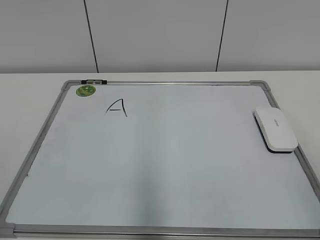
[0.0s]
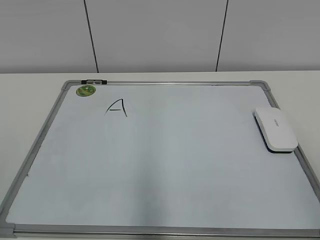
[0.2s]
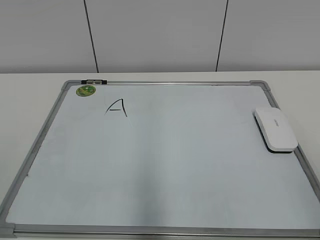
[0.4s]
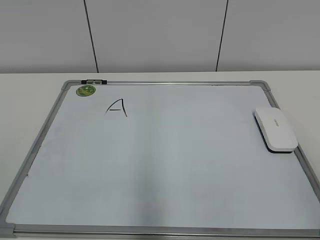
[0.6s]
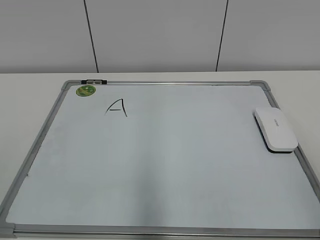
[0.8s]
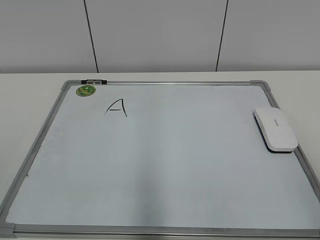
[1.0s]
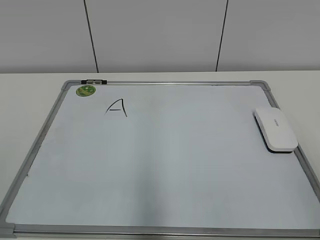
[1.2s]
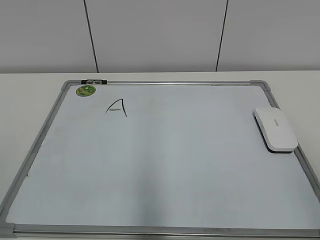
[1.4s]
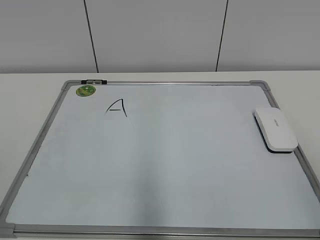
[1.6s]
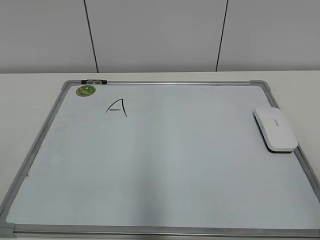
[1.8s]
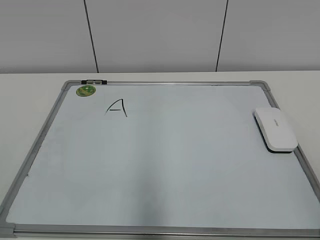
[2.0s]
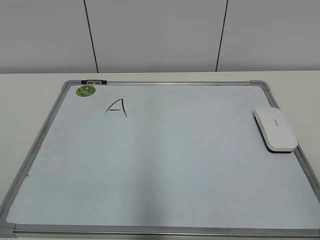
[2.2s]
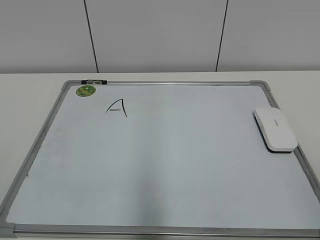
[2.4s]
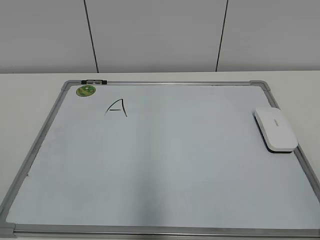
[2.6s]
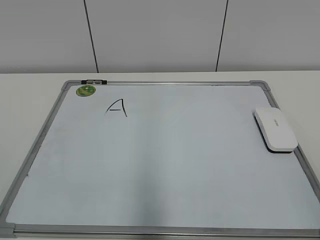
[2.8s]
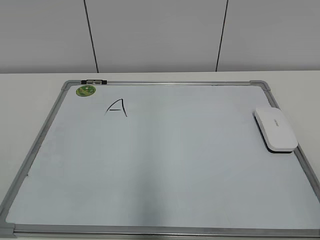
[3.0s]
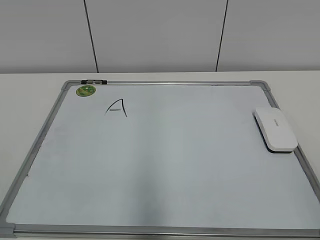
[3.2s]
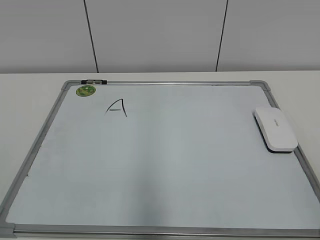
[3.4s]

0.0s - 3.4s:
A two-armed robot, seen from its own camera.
Task of the whole recording: pick up the eraser on the blackboard and erase the letter "a".
0.0s - 1.6s: Neither gripper changes place.

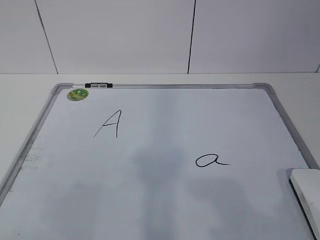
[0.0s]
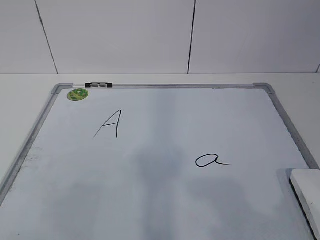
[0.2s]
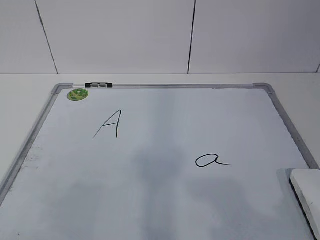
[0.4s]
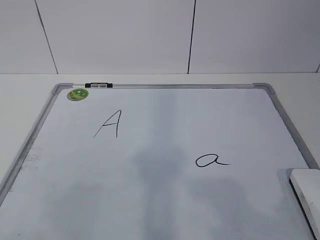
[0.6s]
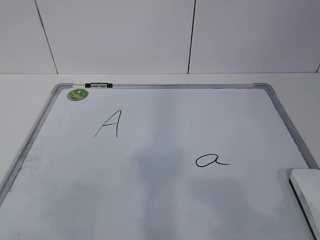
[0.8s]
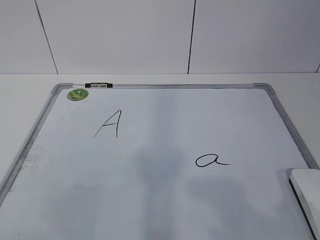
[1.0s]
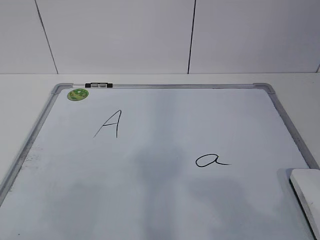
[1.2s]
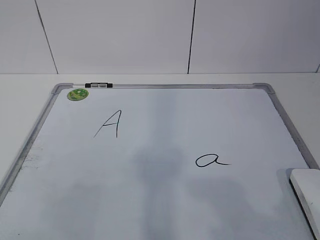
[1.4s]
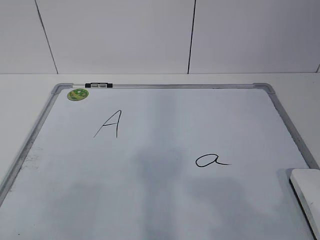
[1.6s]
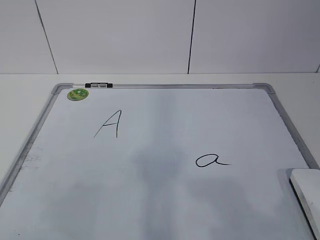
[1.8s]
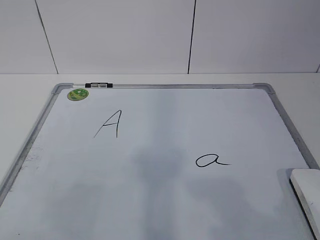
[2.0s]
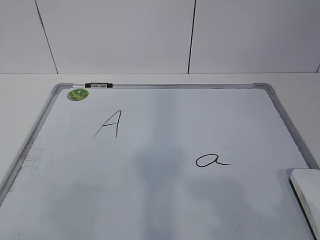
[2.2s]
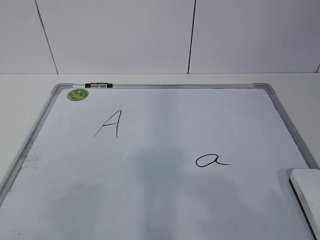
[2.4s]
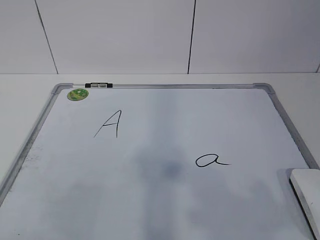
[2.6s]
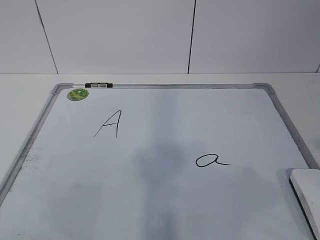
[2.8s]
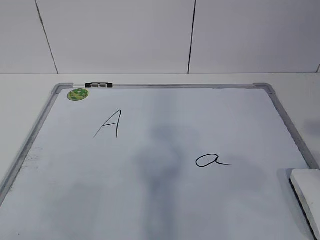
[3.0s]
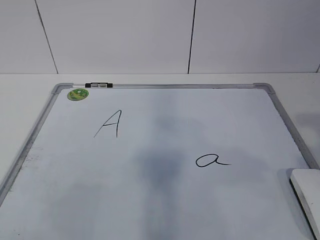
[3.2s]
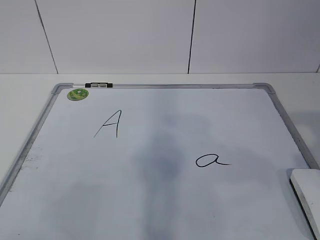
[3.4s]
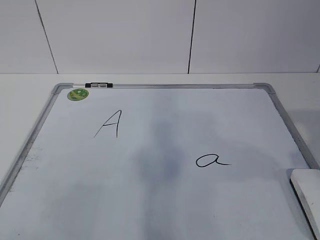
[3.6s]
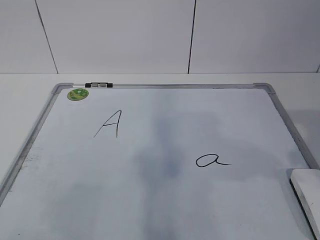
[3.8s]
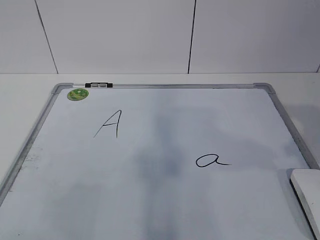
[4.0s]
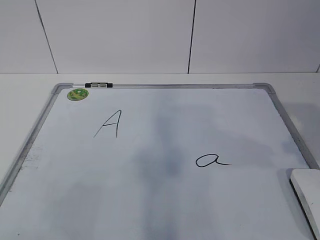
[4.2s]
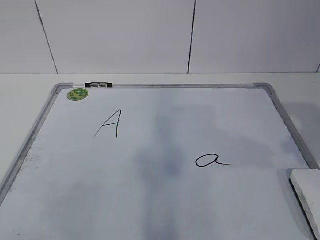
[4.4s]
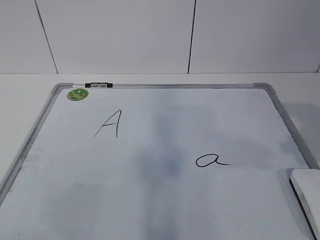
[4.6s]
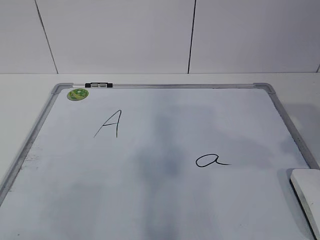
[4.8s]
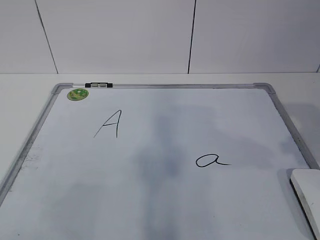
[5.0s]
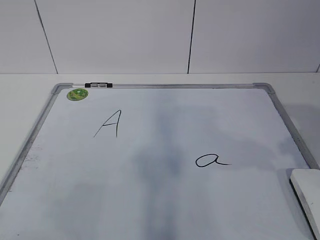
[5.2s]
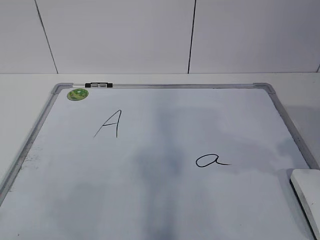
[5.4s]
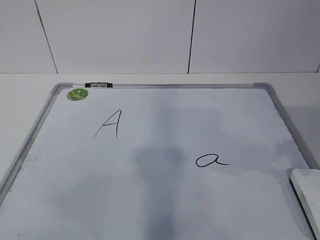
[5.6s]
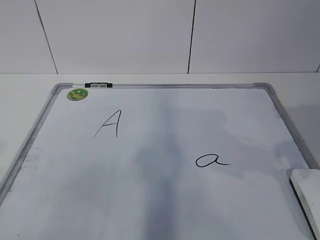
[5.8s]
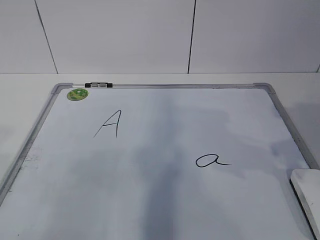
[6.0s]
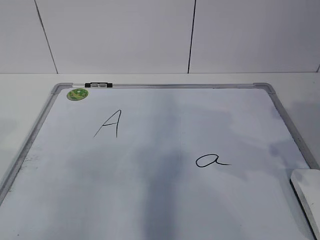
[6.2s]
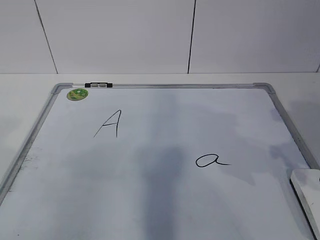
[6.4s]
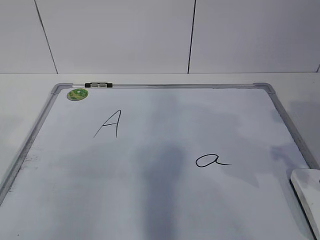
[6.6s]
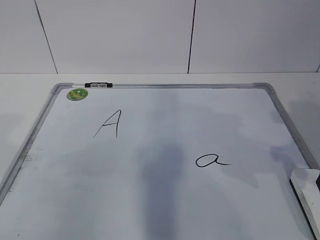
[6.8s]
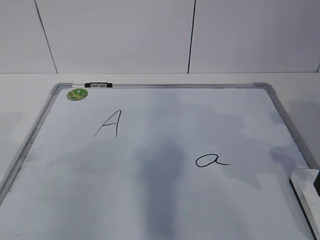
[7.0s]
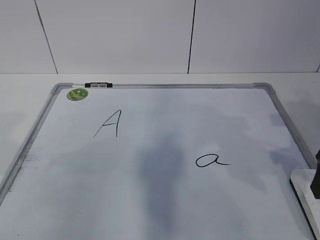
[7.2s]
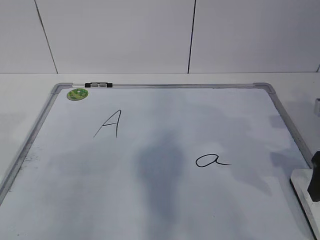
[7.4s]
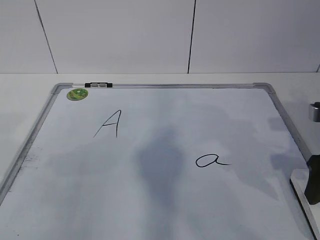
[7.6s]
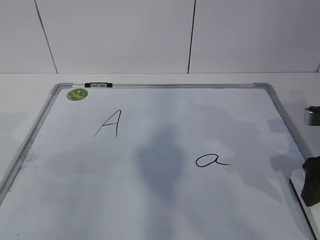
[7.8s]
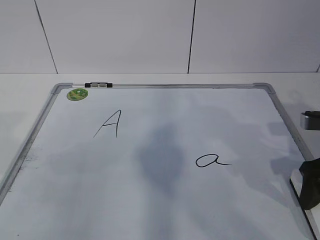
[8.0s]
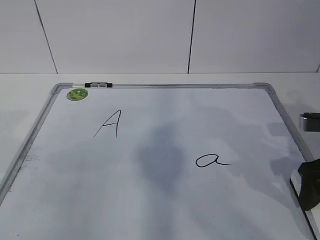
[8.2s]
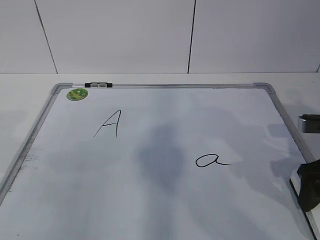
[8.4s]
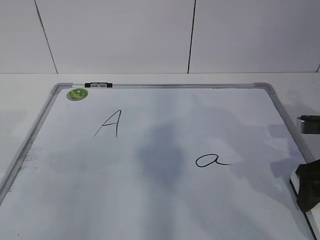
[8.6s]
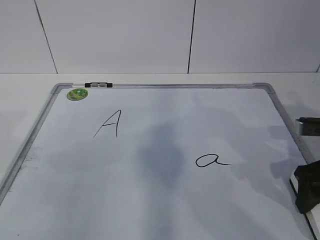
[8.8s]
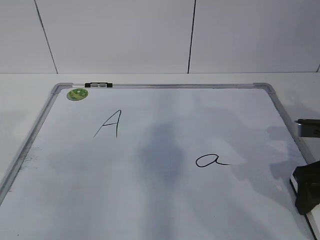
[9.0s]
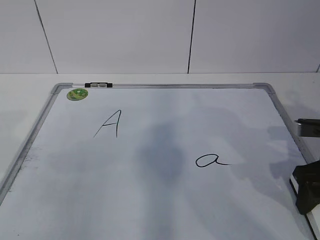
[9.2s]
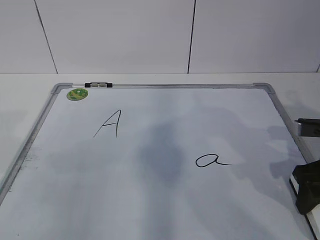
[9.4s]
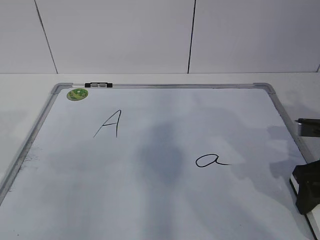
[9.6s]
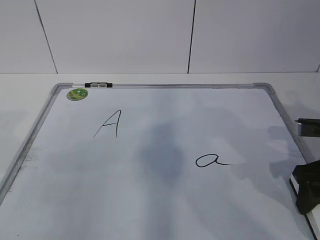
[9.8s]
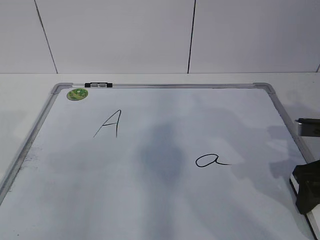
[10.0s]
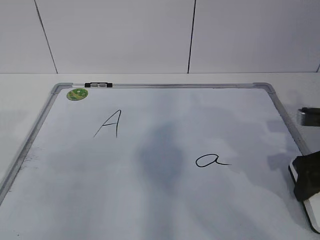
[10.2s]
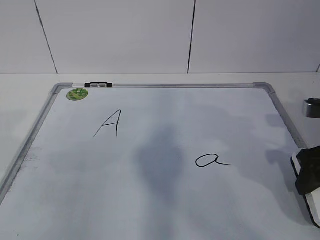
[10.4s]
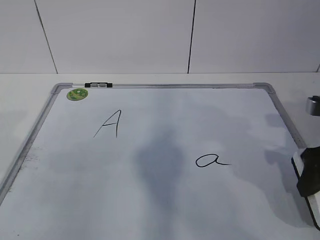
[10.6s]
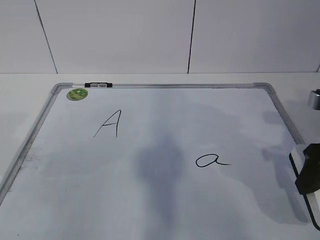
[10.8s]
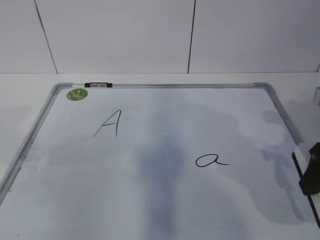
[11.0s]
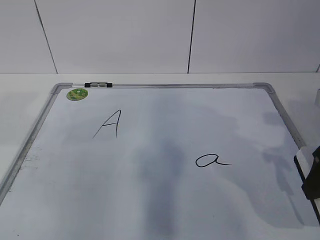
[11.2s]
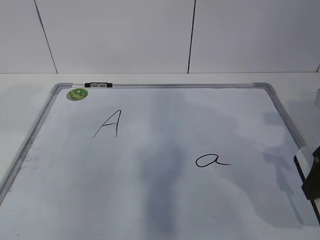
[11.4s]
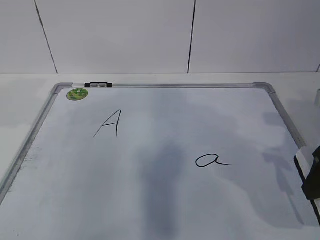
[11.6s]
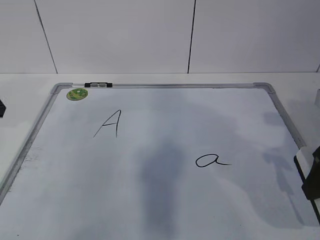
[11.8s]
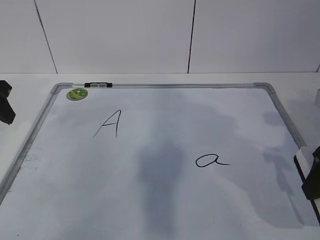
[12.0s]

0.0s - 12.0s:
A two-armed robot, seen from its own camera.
Task of the whole recording: pick up the eraser on the blackboard and erase the letter "a".
4.4s - 6.0s: The left gripper travels forward by roughly 5 cm; the right gripper ends up approximately 5 cm from where it was.
6.0s - 7.6s: The right gripper heads downward, covering about 5 cm, and opens its fingers.
7.6s - 9.0s: The grippers make only small movements.
9.0s - 10.4s: The right gripper closes its fingers.
10.4s - 12.0s: The left gripper shifts approximately 15 cm forward, while the right gripper moves roughly 5 cm.

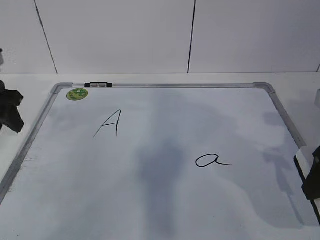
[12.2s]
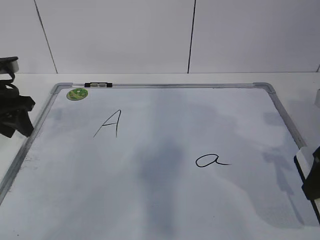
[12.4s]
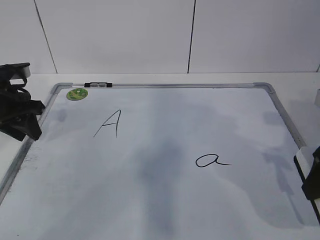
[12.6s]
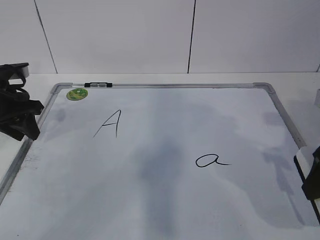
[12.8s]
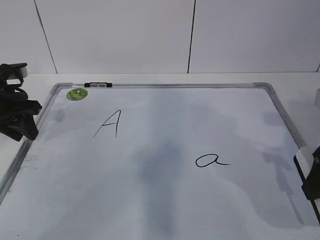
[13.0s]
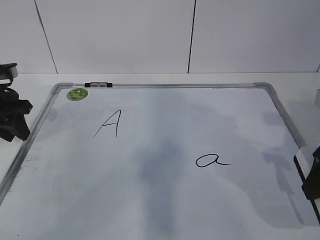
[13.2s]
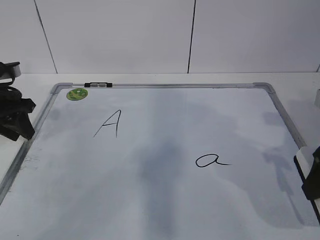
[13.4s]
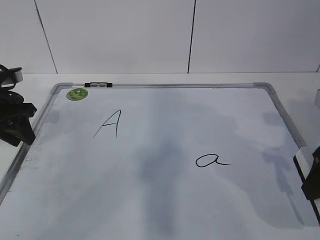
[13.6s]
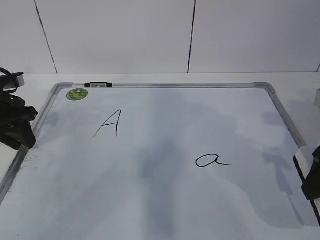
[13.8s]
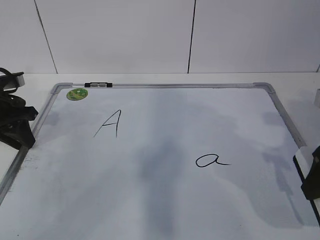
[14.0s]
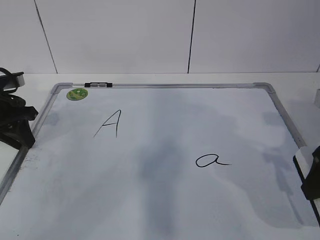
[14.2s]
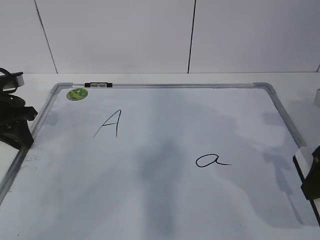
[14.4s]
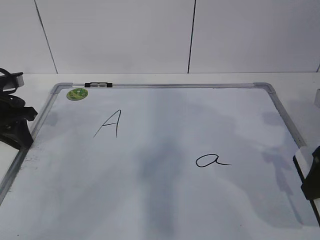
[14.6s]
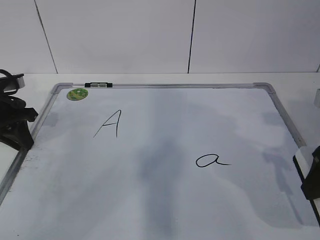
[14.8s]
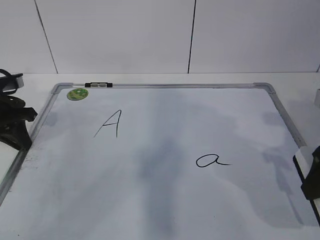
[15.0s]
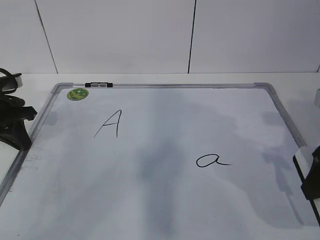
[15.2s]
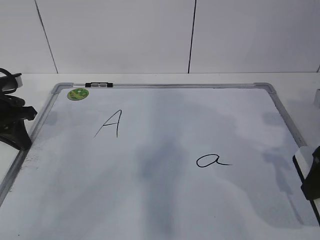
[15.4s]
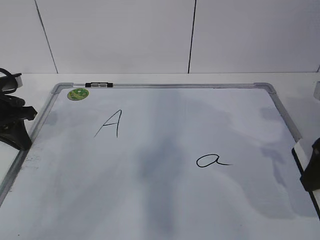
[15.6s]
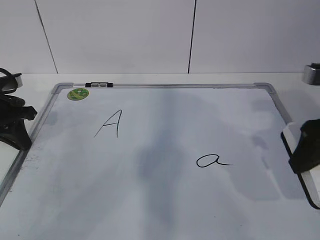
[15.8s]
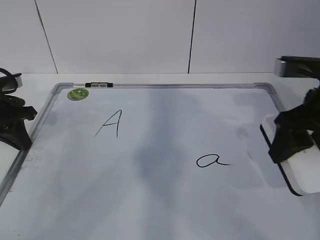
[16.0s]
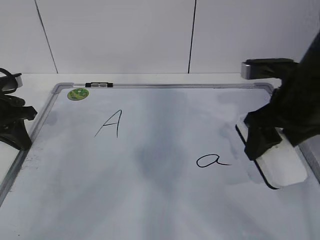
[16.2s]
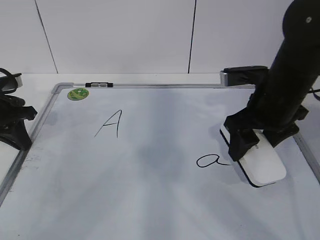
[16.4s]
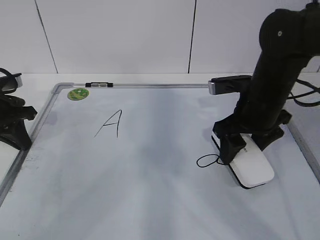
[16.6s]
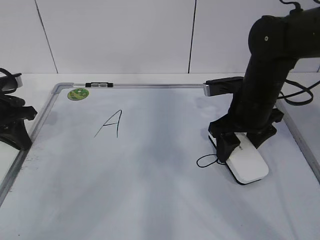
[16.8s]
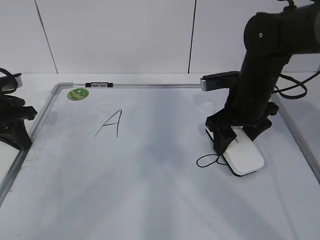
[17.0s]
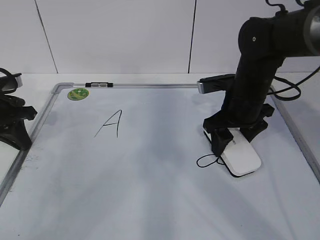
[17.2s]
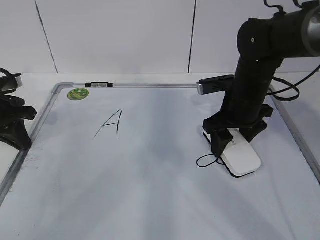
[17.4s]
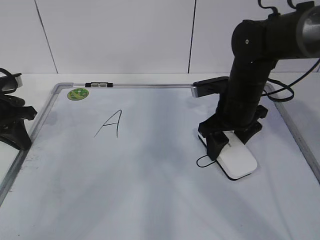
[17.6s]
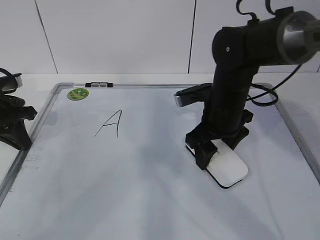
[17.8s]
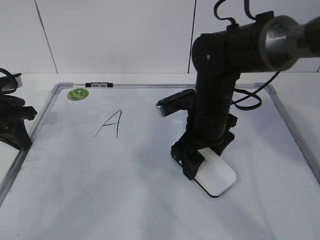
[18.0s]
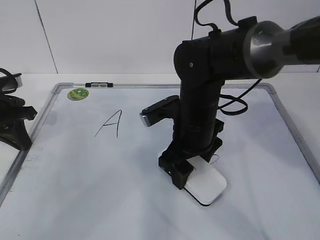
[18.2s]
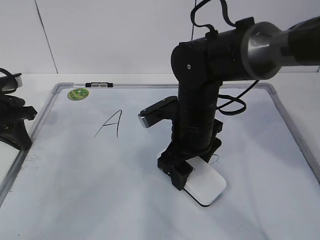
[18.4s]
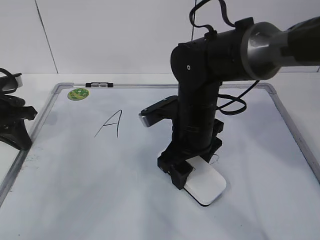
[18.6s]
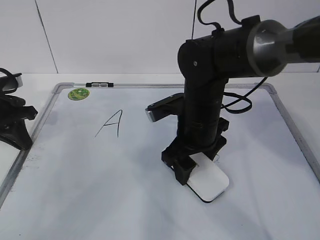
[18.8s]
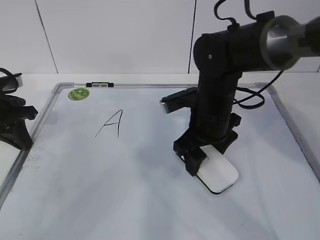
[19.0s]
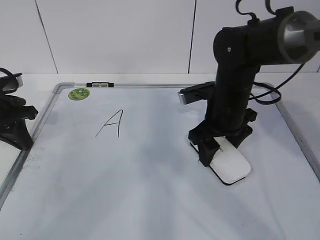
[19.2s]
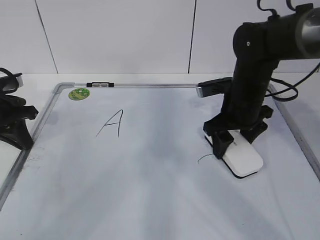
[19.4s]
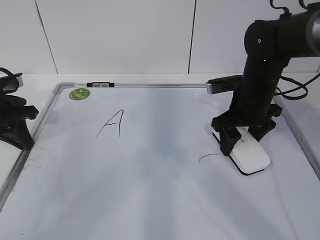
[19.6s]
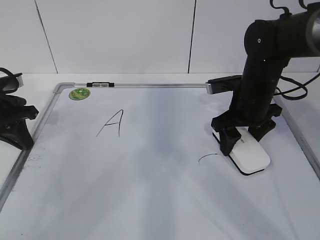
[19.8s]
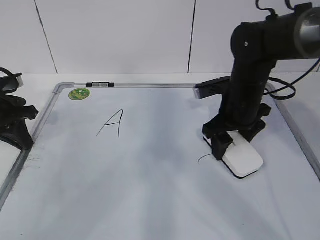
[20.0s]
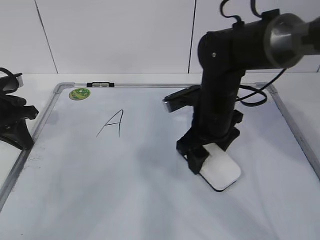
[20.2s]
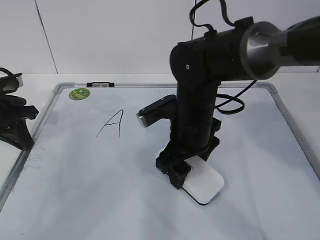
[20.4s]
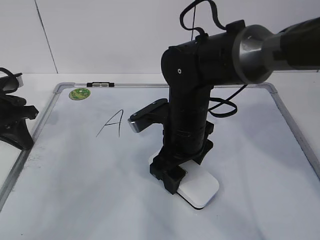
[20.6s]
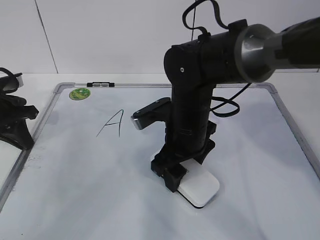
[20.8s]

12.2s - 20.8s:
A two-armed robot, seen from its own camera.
Task of the whole recording: pick up the eraser on the blackboard and erase the letter "a".
Step, 12.8s - 17.8s: Erase the letter a with your right hand.
Step, 18.2s - 20.8s: Put down the eraser with your right hand.
12.2s - 13.6s: The left gripper shifts by about 5 cm.
13.6s - 15.0s: The left gripper closes up.
15.0s - 16.6s: The right gripper goes some 15 cm forward and to the left.
16.6s - 18.0s: The right gripper travels to the left by some 10 cm.
18.0s - 19.4s: The right gripper travels to the right by some 5 cm.
19.4s - 20.8s: The right gripper travels to the left and backward by roughly 10 cm.
